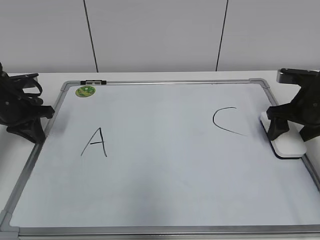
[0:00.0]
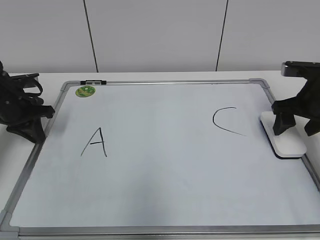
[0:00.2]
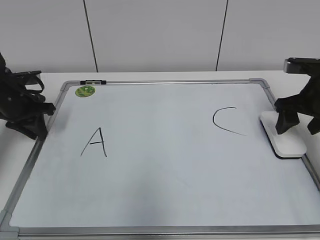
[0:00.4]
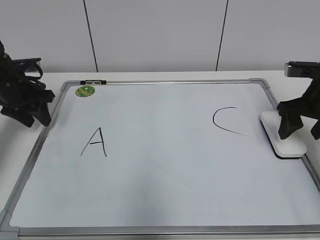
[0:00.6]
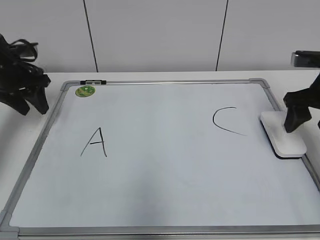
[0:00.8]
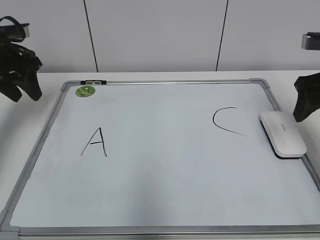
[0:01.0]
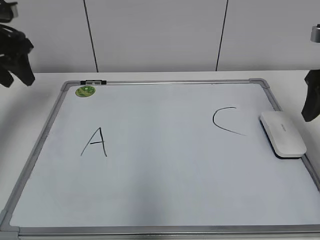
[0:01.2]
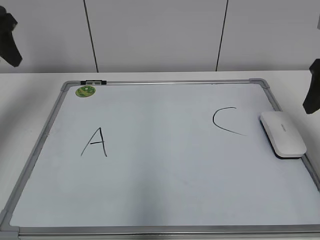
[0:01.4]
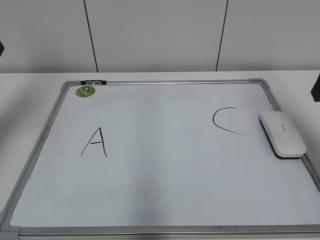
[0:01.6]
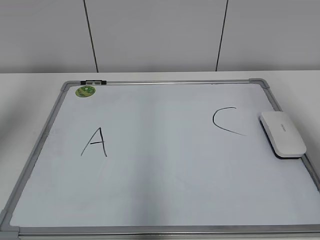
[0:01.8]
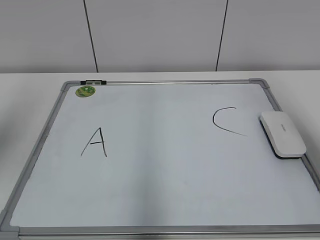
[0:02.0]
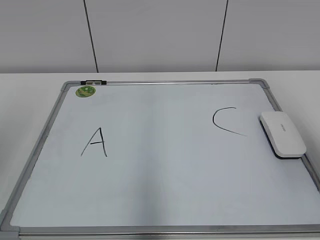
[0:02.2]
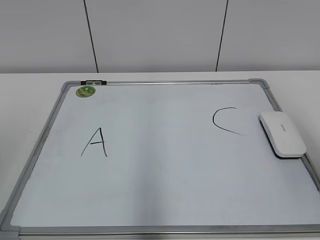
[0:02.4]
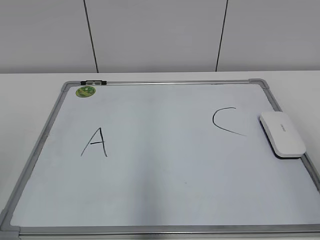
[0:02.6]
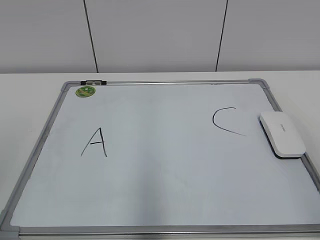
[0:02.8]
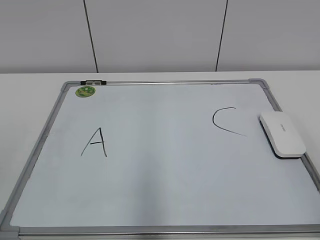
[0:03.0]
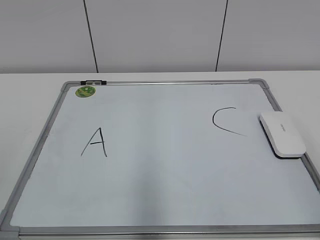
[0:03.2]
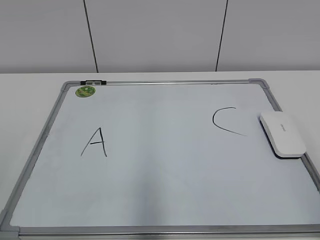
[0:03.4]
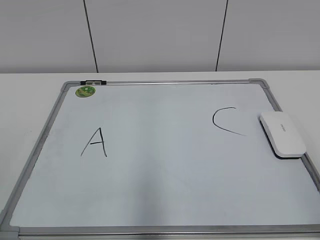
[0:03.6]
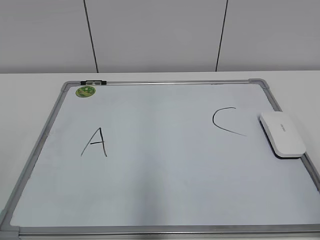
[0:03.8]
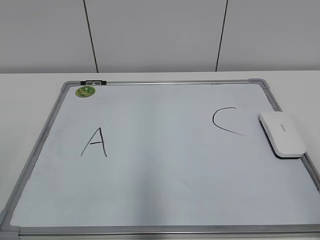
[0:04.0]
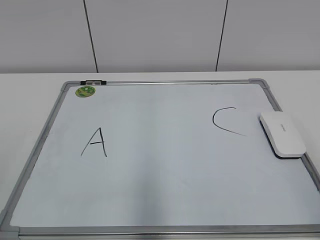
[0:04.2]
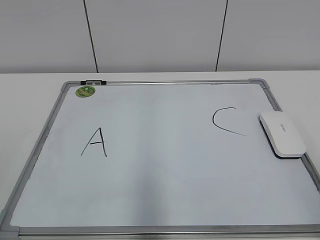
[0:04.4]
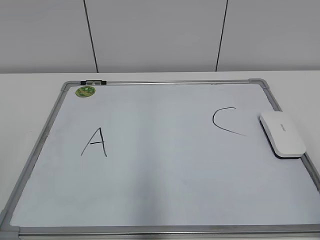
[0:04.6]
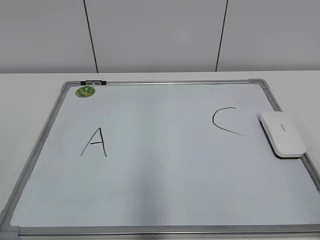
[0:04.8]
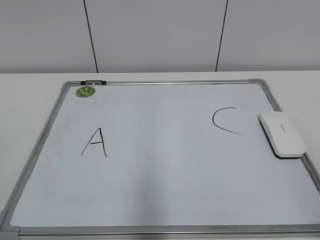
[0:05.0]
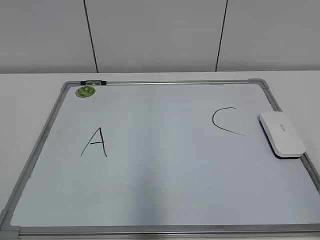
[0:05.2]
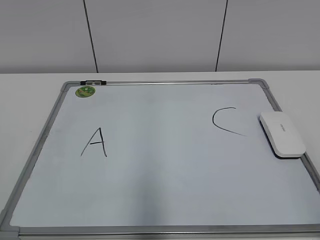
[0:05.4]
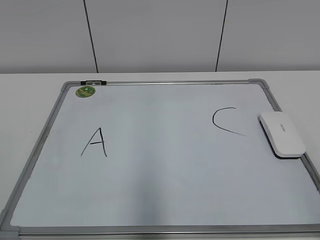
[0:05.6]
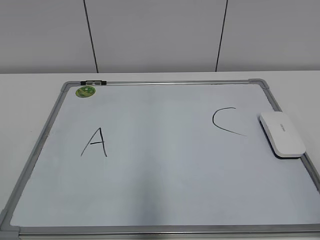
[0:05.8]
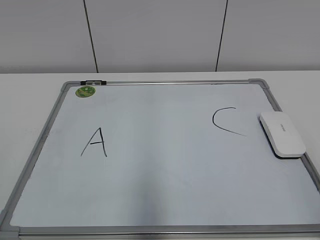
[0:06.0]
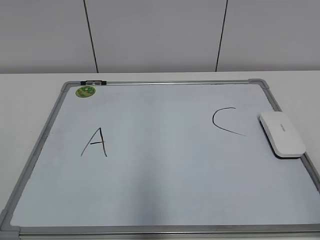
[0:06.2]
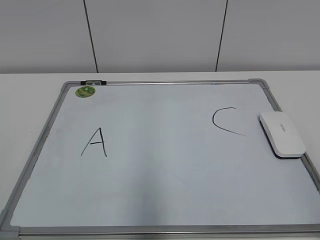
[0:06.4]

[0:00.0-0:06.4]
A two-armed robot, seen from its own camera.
Task of the whole recording: pick up the eraser on the blackboard and erase the letter "B".
0:00.0 to 0:01.6: The right gripper heads upward and backward, covering some 20 cm; the left gripper heads upward, covering approximately 20 cm, and opens its fingers.
0:01.6 to 0:03.2: The grippers both shift backward by about 30 cm.
